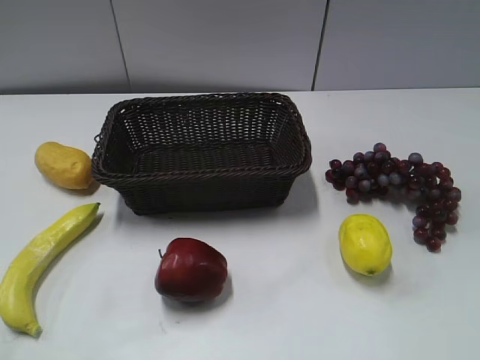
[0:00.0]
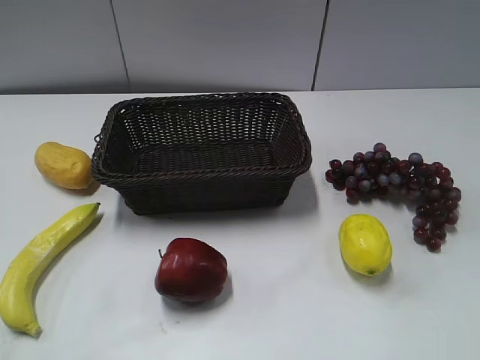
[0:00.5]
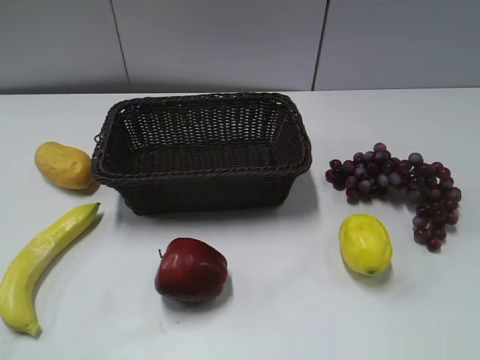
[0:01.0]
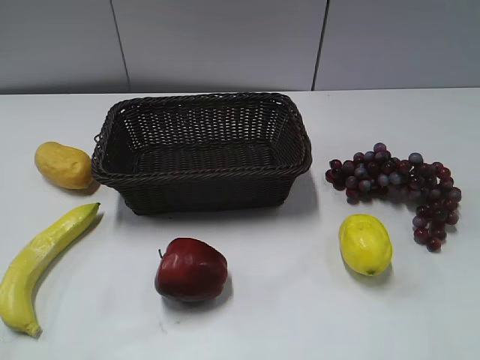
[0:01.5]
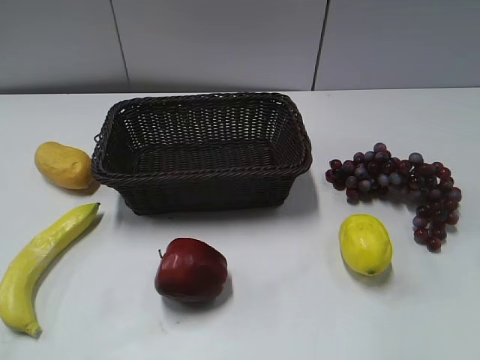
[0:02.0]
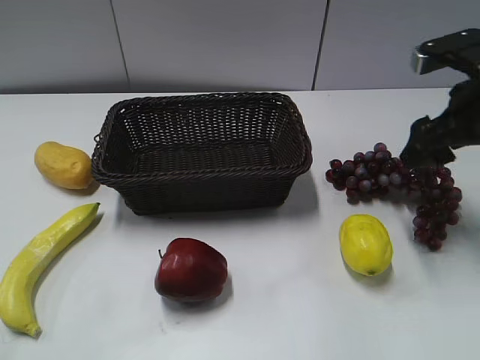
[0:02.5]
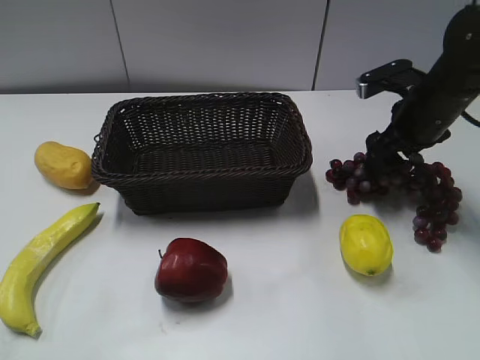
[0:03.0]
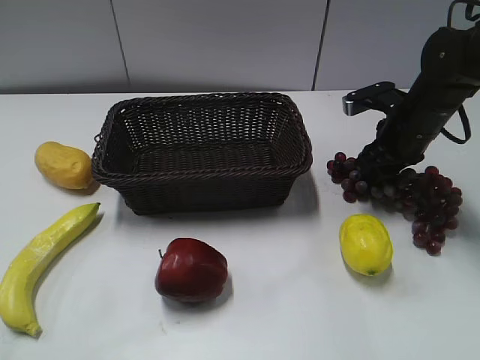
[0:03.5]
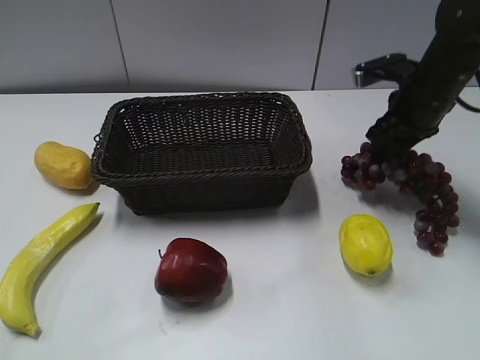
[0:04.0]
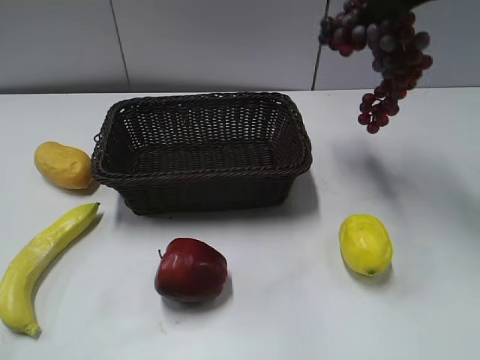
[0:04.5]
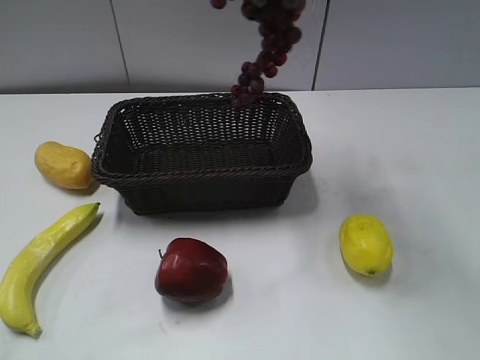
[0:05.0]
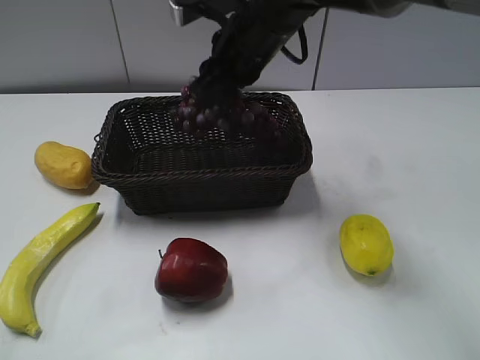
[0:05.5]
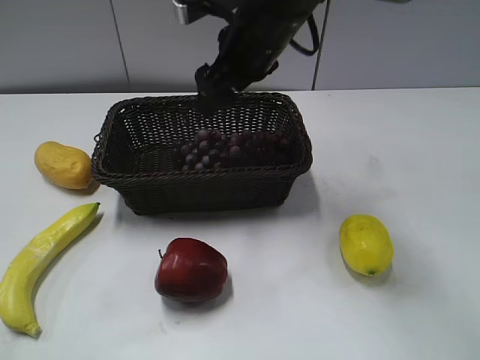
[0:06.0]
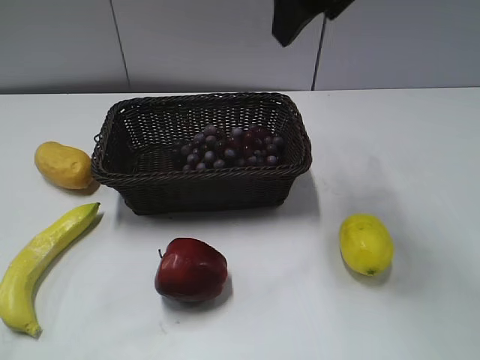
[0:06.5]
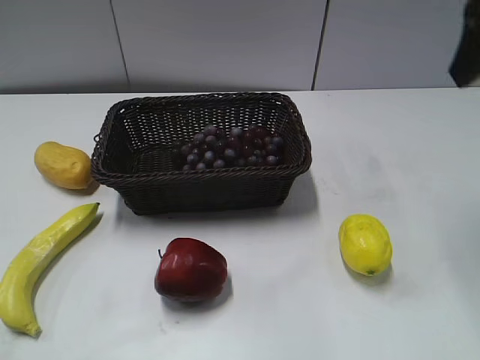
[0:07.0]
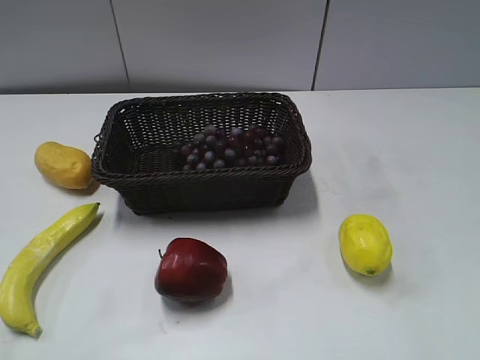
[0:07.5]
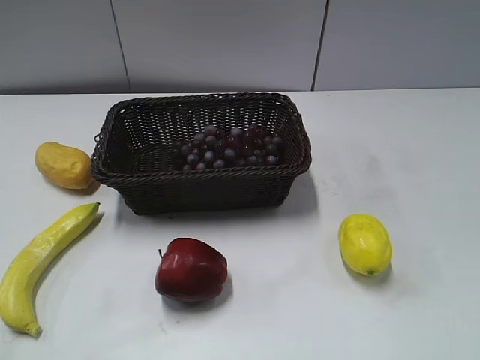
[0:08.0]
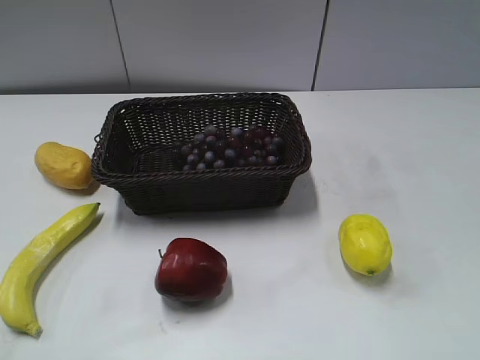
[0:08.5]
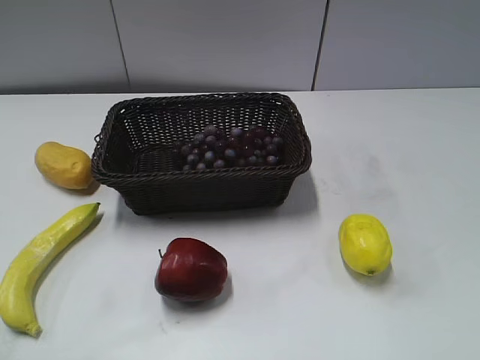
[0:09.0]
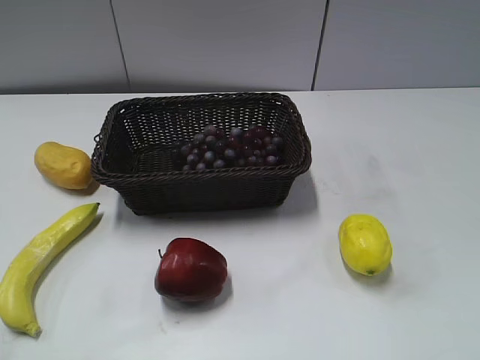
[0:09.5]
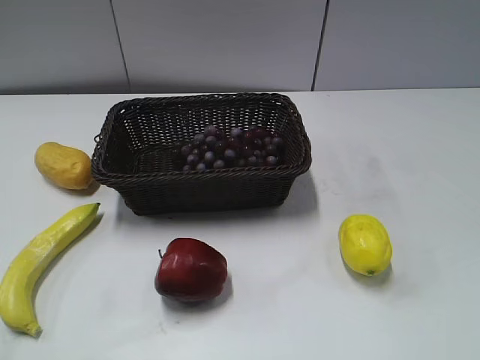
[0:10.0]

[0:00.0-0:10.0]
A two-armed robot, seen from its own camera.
Step, 0:02.0 to 0:04.0: Grasp the grape with right gripper.
Step, 0:04.5 to 0:05.5: Place the grape in the basket with right gripper.
0:02.0 to 0:04.0: The right gripper is displaced forward by roughly 20 cm, and closes.
0:04.0 to 0:06.0: The right gripper goes approximately 20 cm to the left, and opens up.
0:06.0 to 0:08.0: The right gripper travels backward and to the right by approximately 50 cm.

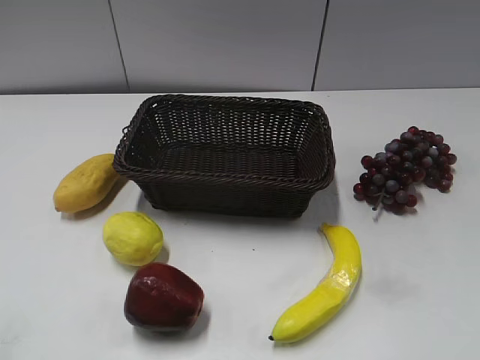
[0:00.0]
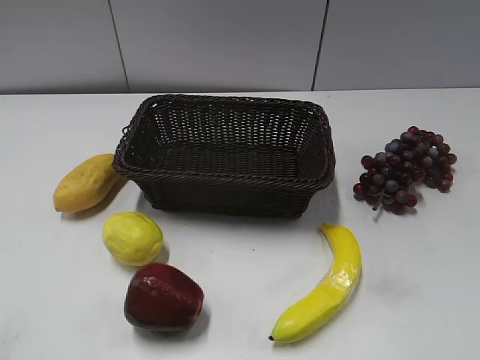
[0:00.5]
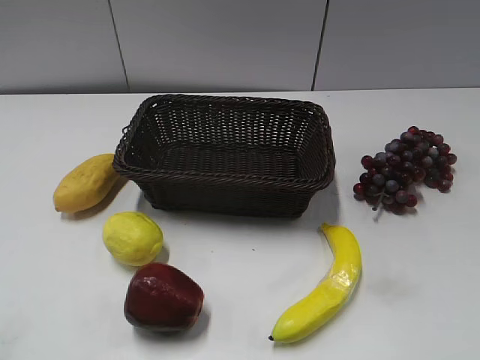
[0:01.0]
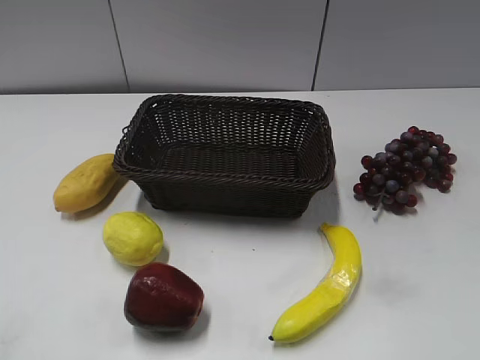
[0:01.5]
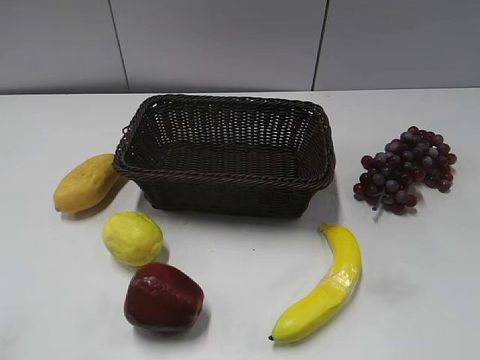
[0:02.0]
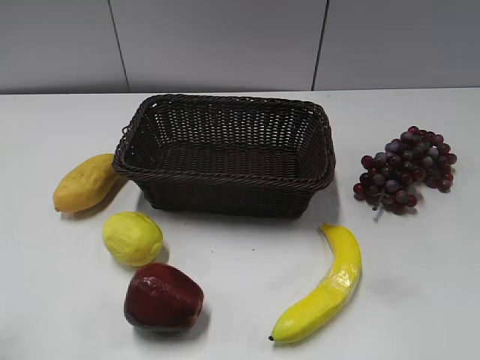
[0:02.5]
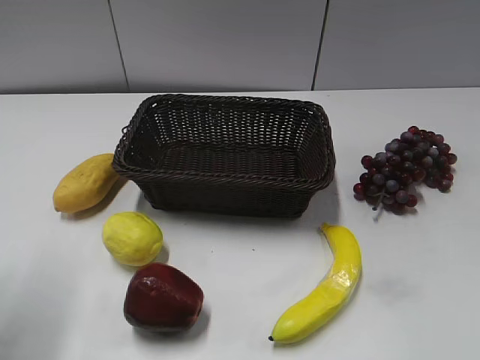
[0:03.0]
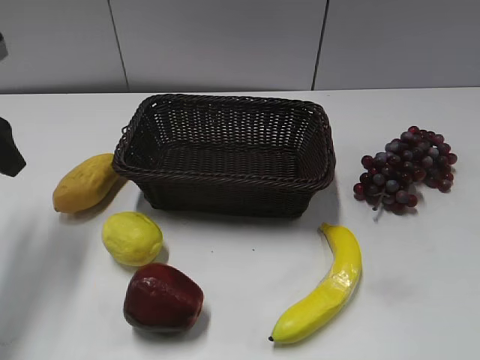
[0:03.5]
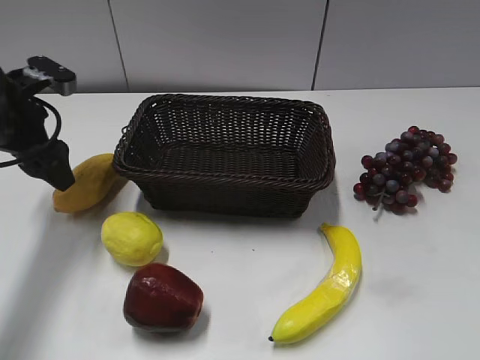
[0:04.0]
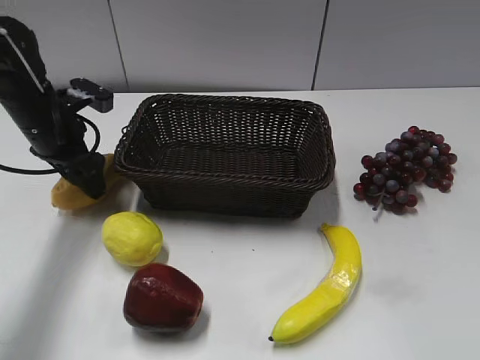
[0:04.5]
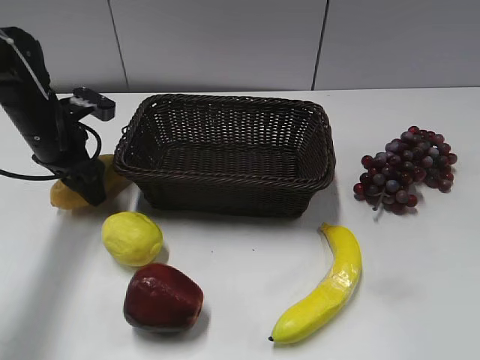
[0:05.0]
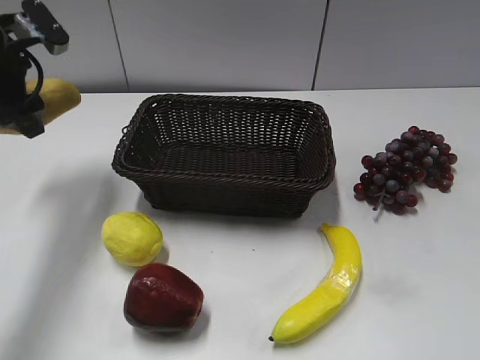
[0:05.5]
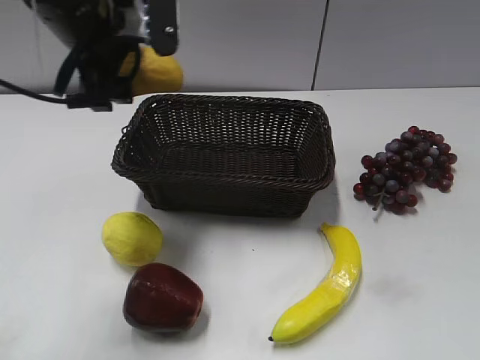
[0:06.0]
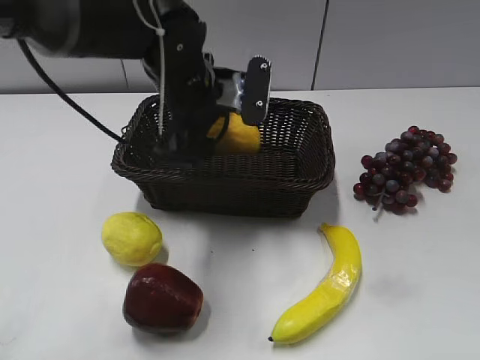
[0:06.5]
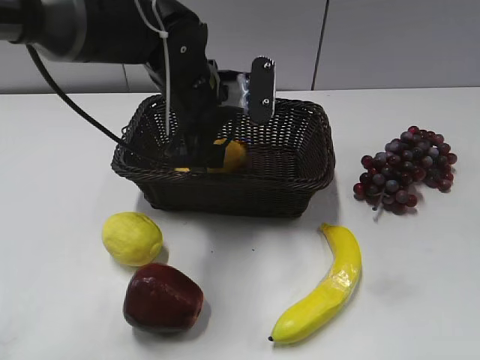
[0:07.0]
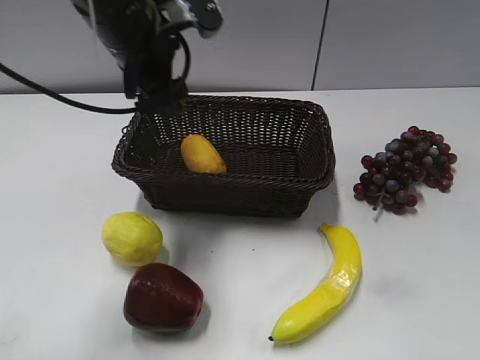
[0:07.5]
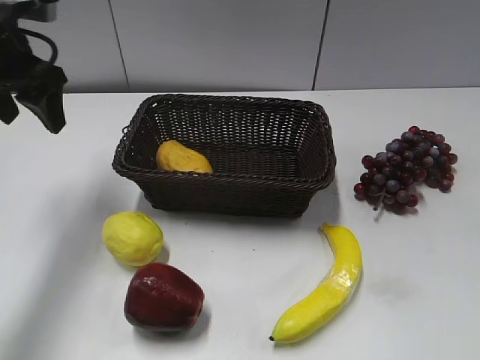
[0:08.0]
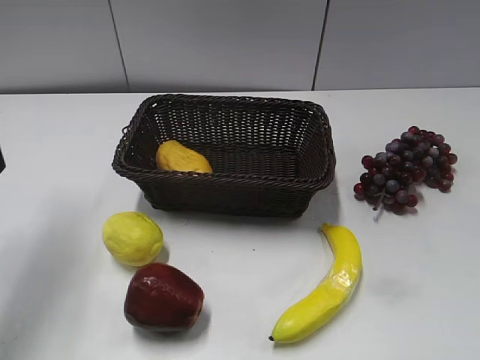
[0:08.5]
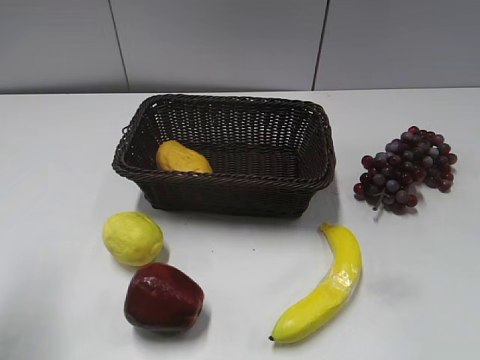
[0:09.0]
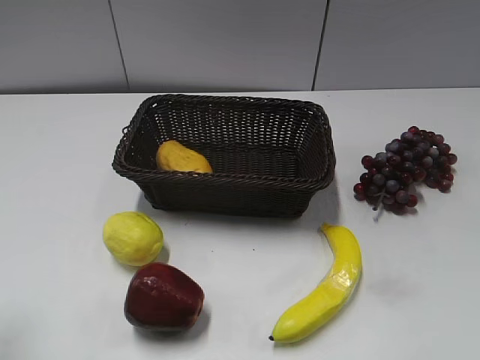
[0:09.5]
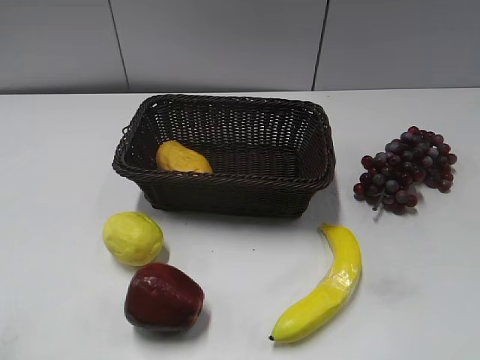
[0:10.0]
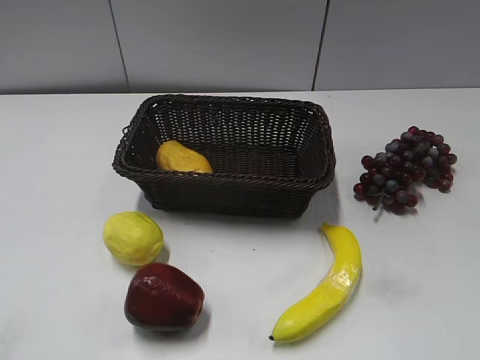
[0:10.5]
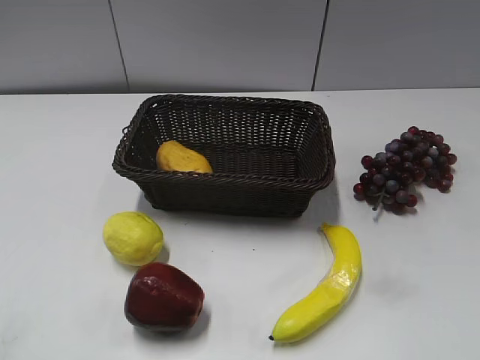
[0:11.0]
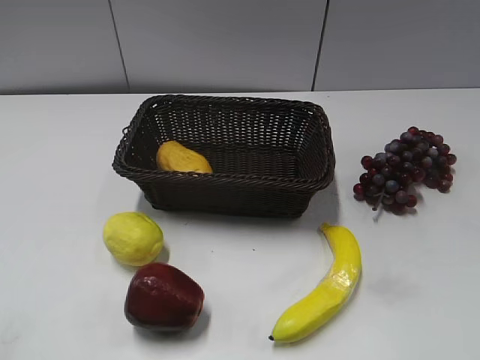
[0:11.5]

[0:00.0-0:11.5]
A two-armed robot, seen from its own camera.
Step, 0:03.5 to 0:04.5: Grasp the mango with left gripper.
Step, 0:05.0 to 0:07.0: Place the mango in the basket with left gripper.
0:02.0 to 0:04.0: The left gripper is displaced forward by approximately 35 cm, and opens.
0:04.0 to 0:06.0: The left gripper shifts roughly 15 cm to the right and upward.
0:06.0 to 0:07.5: The left gripper goes some 5 cm to the right.
0:07.5 to 0:09.5: The left gripper moves backward and to the left, about 30 cm.

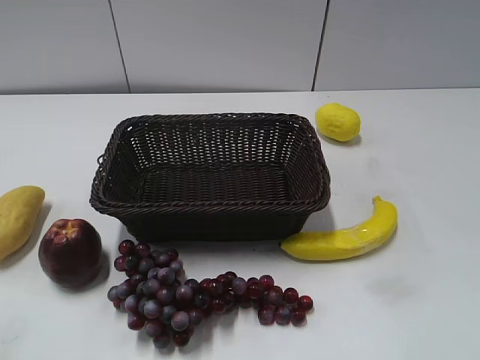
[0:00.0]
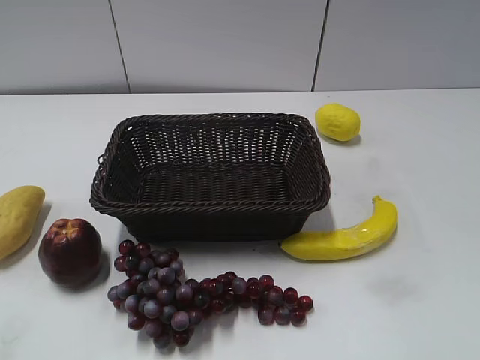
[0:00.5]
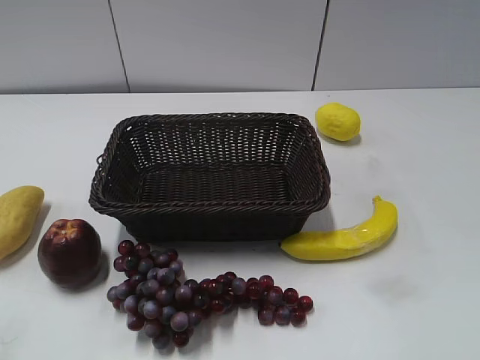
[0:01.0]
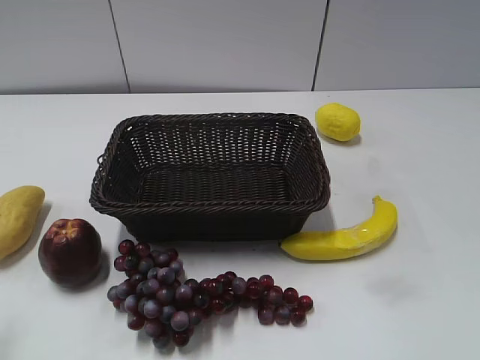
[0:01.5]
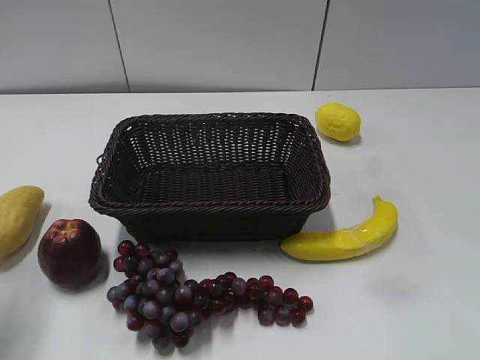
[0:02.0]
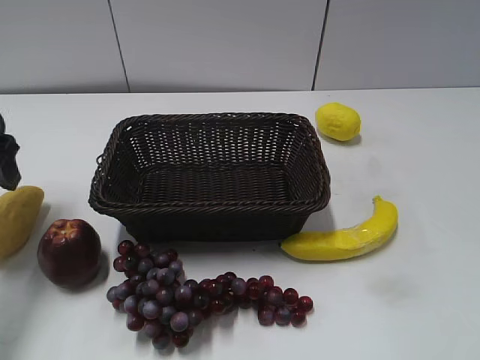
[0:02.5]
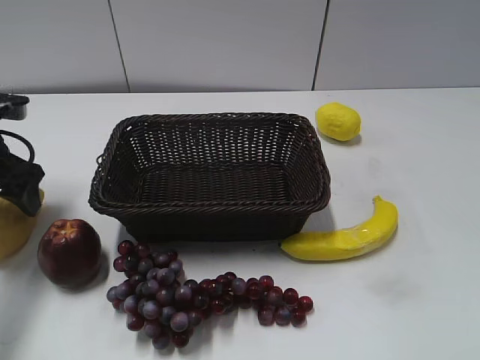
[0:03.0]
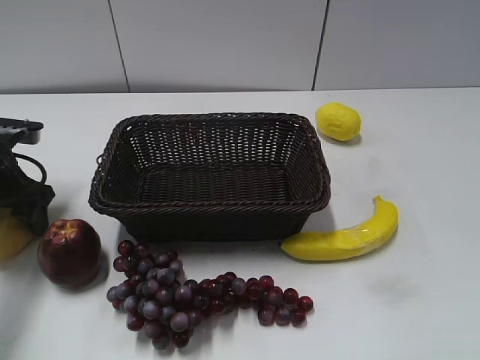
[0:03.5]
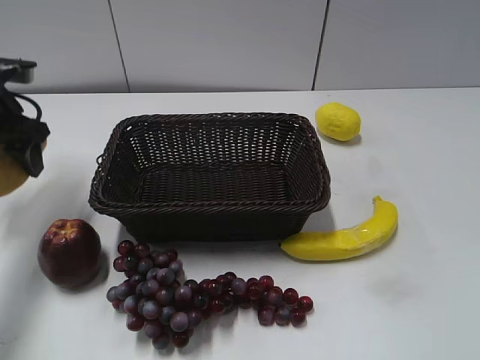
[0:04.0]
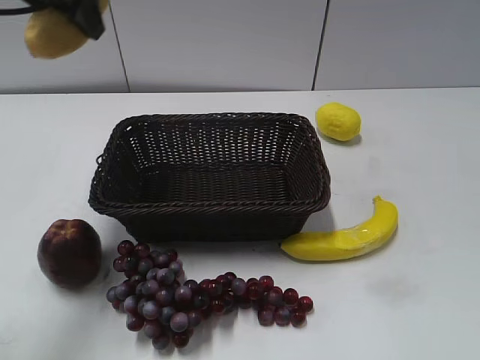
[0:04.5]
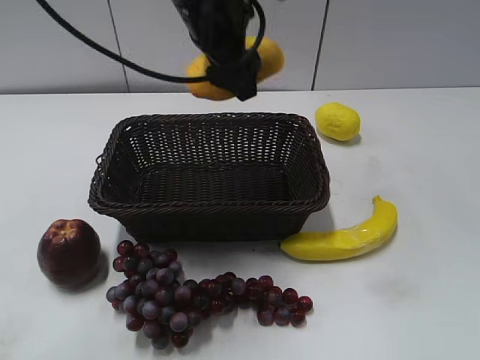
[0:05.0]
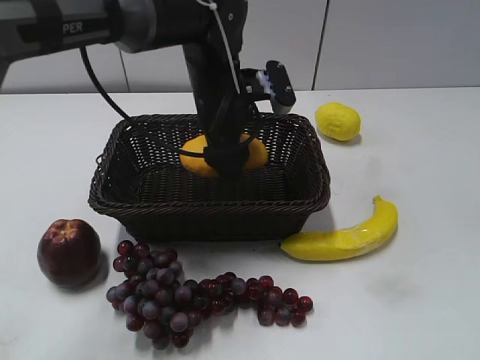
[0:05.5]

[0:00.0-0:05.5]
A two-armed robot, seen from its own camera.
Step, 0:02.5 to 0:03.5: Grasp the mango with left gripper.
0:02.0 to 0:03.5: The left gripper is displaced forward and downward by about 20 cm.
0:03.5 to 0:05.5: The left gripper is displaced to the right by roughly 30 cm.
